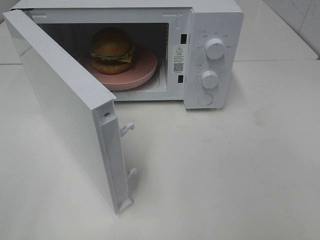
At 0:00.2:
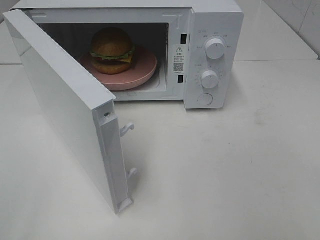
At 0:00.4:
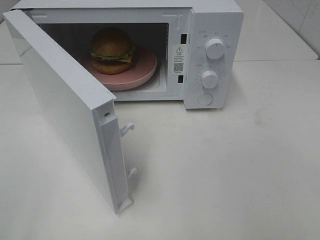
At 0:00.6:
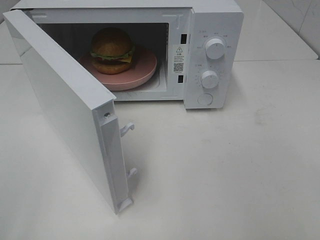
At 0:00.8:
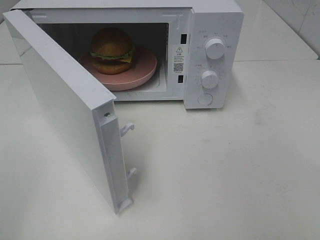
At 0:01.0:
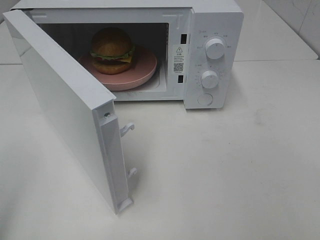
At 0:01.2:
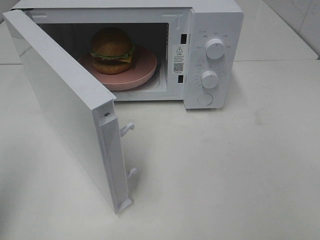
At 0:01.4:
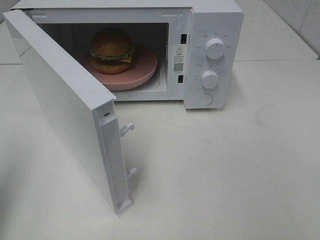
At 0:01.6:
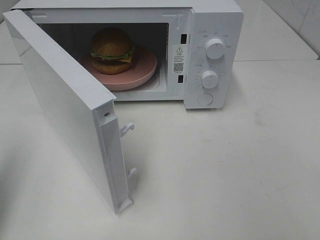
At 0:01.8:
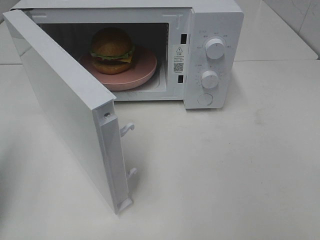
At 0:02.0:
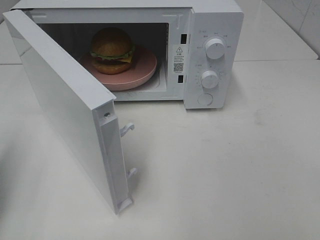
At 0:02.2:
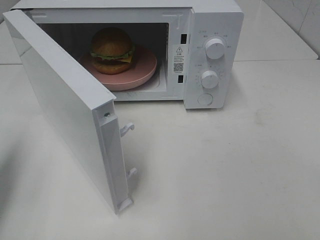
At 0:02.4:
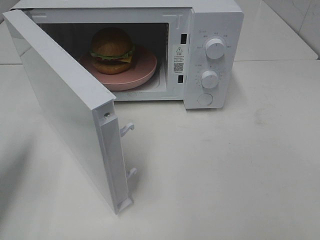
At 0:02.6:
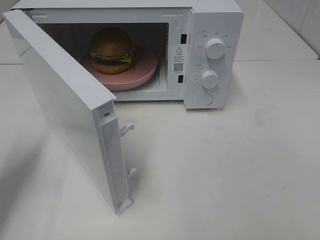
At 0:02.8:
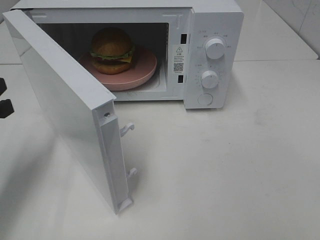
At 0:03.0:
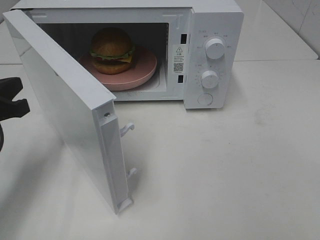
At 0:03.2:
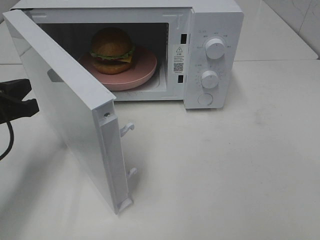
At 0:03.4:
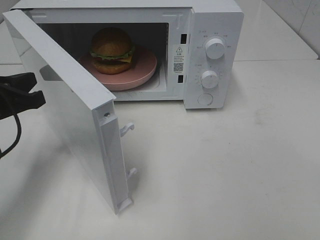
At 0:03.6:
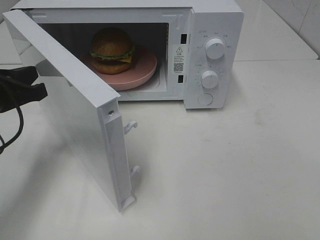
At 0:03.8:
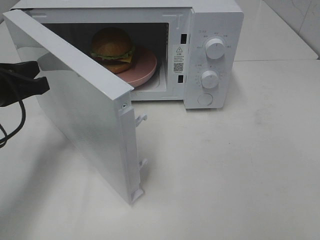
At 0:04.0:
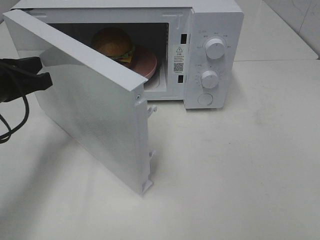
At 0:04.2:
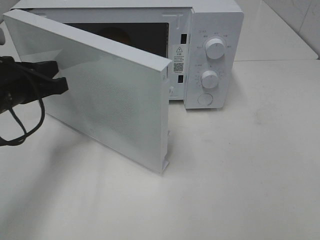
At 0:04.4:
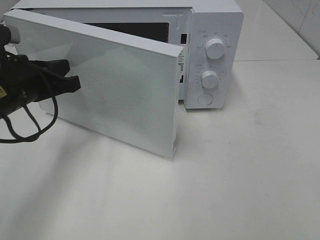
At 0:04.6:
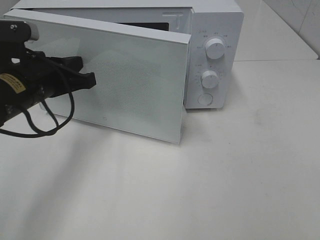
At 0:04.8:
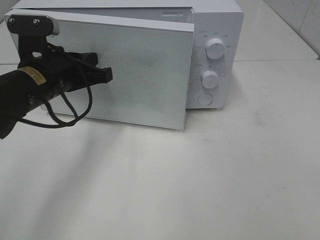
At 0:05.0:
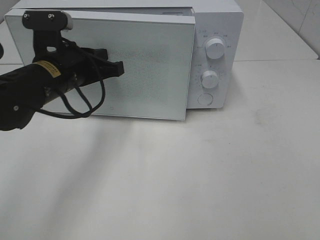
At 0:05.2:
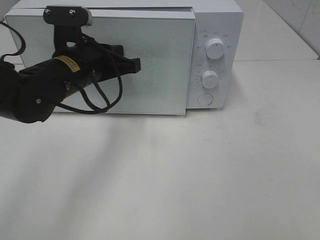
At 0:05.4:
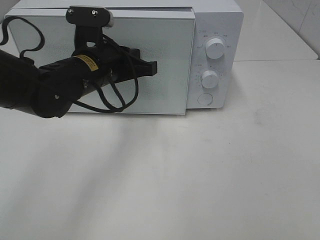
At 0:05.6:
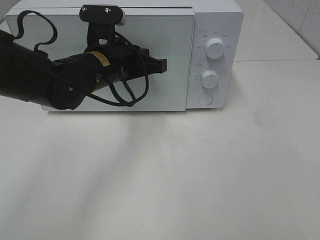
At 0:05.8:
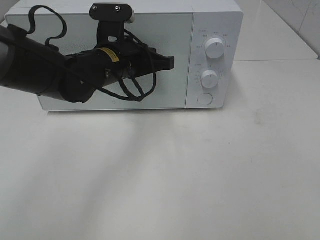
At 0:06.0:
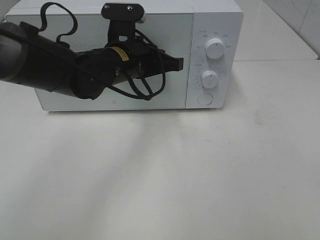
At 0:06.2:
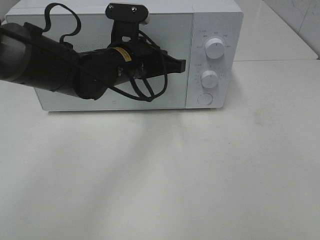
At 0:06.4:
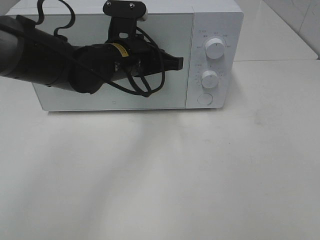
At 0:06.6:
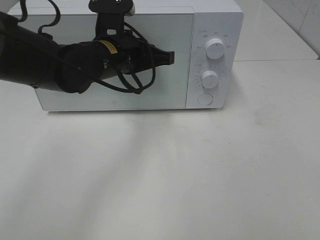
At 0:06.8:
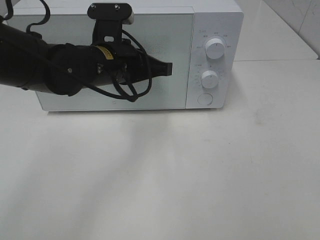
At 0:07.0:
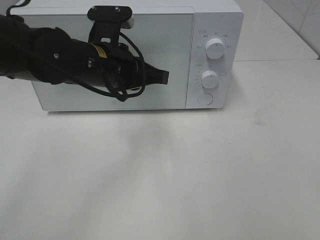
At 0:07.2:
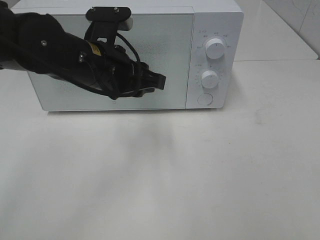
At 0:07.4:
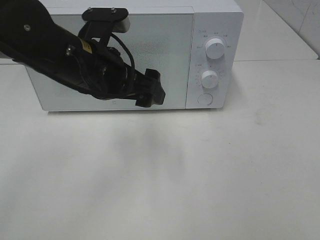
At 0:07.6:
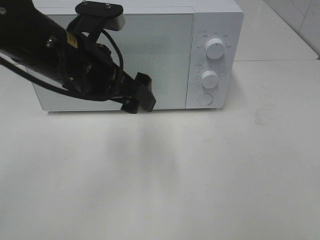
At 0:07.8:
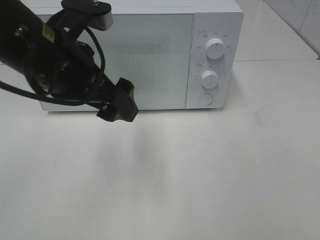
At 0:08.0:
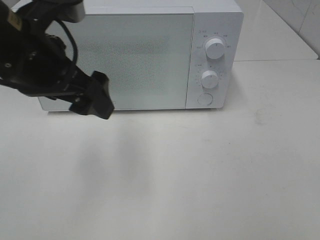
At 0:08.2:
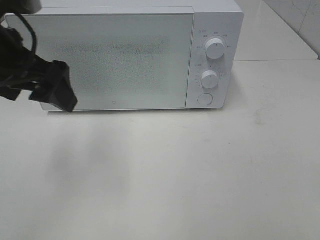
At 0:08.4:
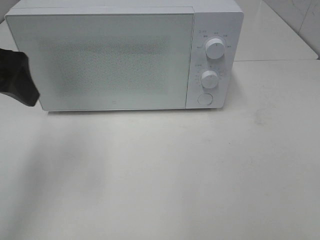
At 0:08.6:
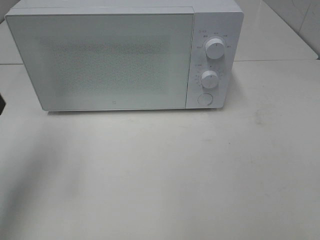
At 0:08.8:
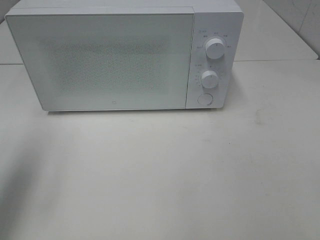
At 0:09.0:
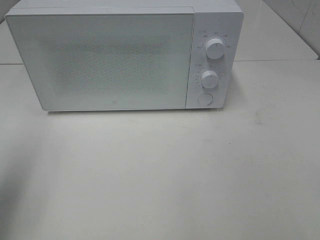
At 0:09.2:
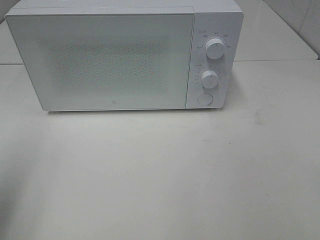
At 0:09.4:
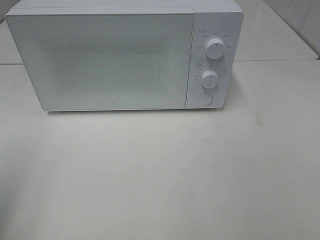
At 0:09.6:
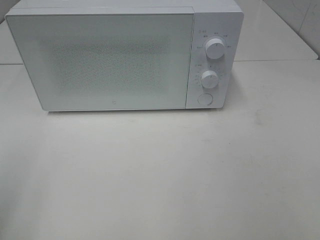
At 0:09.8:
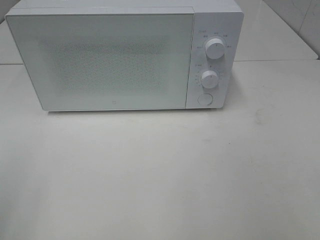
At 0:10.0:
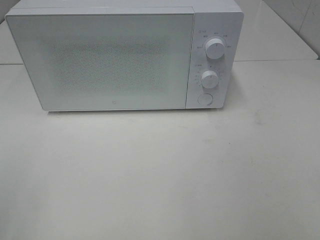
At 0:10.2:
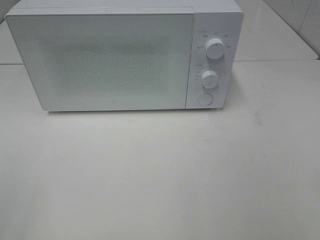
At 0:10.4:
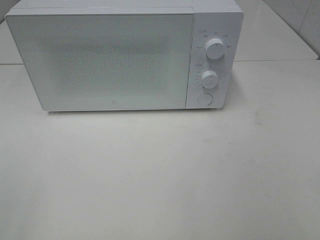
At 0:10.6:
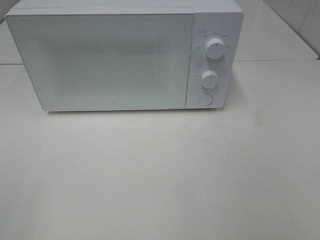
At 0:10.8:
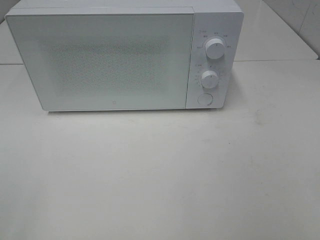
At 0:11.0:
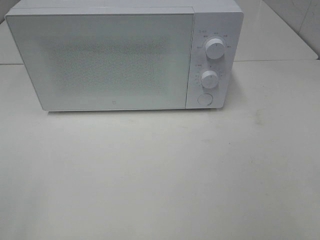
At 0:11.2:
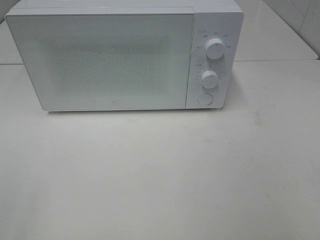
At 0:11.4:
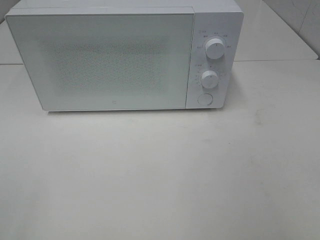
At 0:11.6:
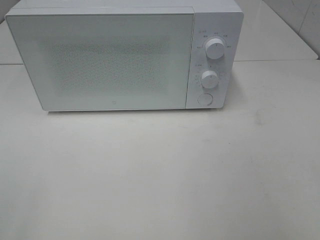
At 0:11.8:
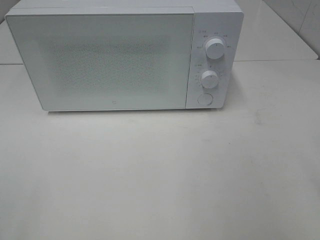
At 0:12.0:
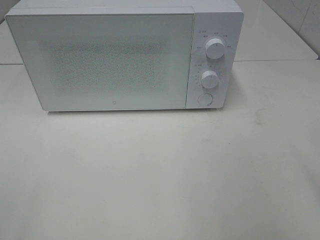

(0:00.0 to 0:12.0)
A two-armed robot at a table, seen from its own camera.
Task of the whole recording: Heat the burger.
Step, 0:00.0 - 0:06.8: Left hand: close the microwave door.
0:00.0 - 0:01.6: The left gripper shifts some 15 cm forward, and closes up.
0:01.6 - 0:03.0: The left gripper travels downward, forward and to the right by approximately 15 cm.
0:03.0 - 0:04.4: The left gripper goes about 5 cm to the right.
0:04.4 - 0:06.0: The left gripper travels to the right and forward by some 15 cm.
0:06.0 - 0:07.6: The left gripper shifts some 10 cm backward and upward, and opens.
0:07.6 - 0:09.0: The left gripper goes about 25 cm to the left and backward.
0:09.0 - 0:10.4: The left gripper shifts roughly 15 cm backward.

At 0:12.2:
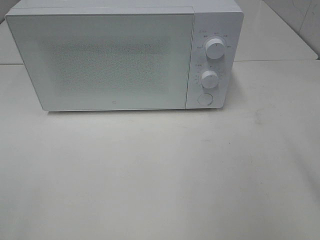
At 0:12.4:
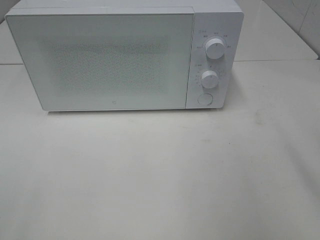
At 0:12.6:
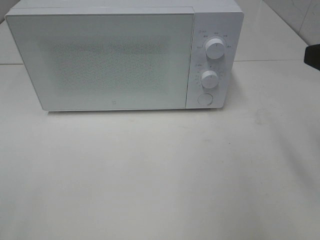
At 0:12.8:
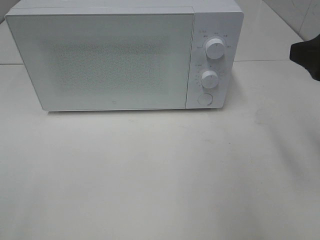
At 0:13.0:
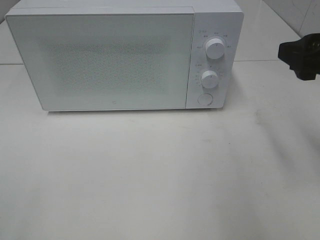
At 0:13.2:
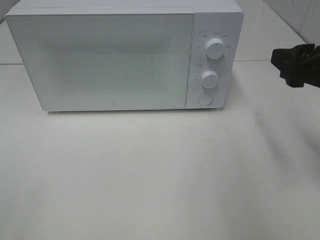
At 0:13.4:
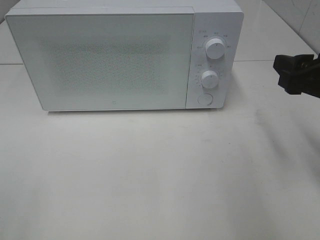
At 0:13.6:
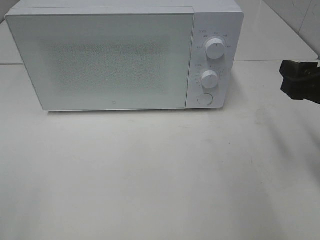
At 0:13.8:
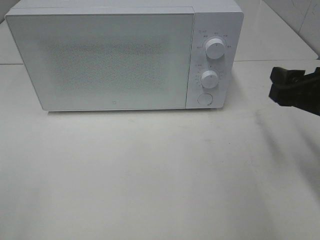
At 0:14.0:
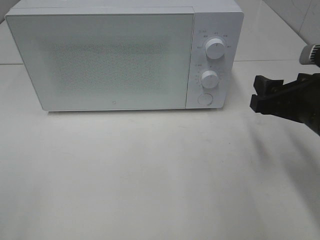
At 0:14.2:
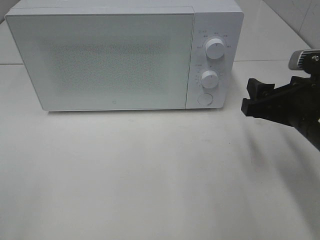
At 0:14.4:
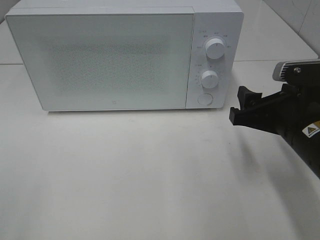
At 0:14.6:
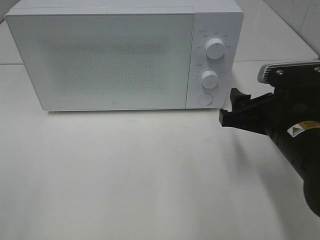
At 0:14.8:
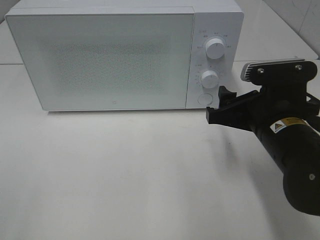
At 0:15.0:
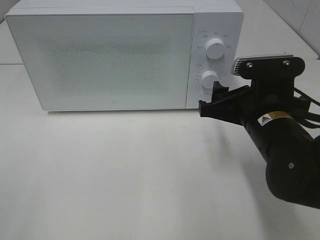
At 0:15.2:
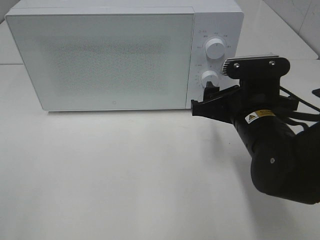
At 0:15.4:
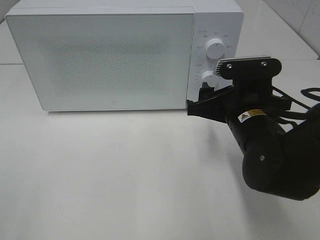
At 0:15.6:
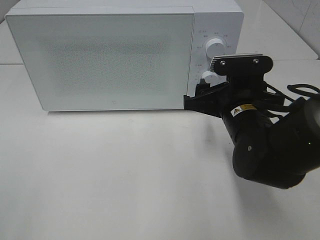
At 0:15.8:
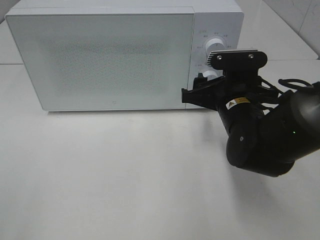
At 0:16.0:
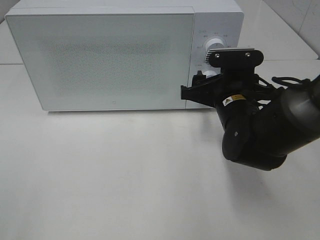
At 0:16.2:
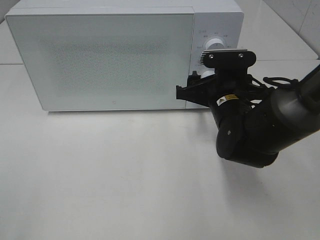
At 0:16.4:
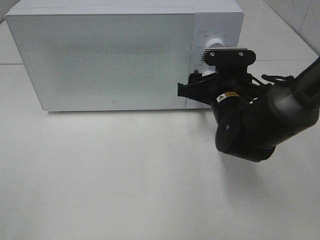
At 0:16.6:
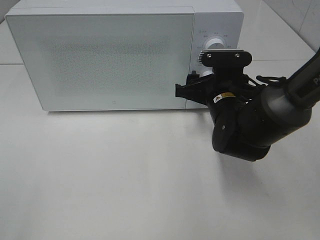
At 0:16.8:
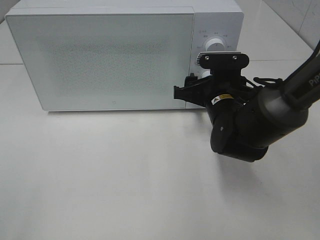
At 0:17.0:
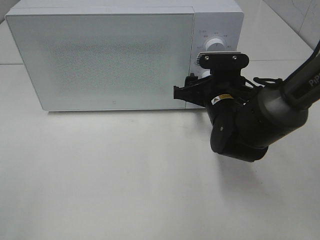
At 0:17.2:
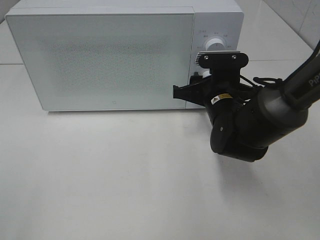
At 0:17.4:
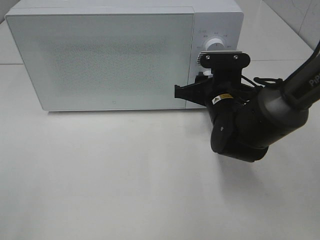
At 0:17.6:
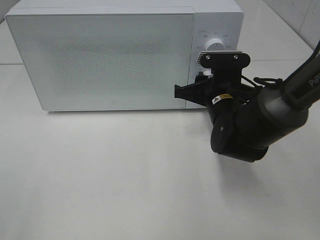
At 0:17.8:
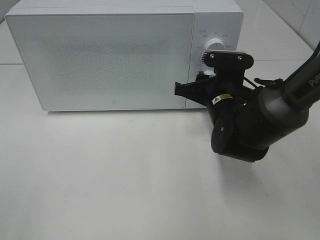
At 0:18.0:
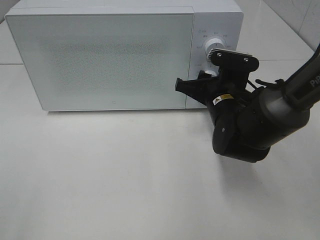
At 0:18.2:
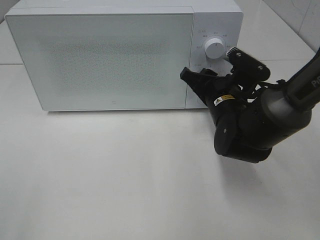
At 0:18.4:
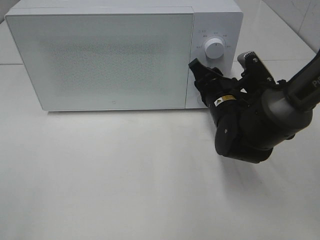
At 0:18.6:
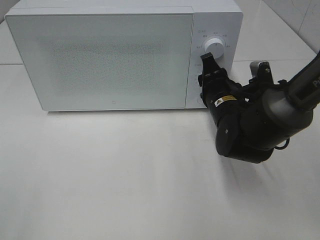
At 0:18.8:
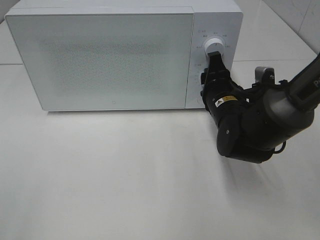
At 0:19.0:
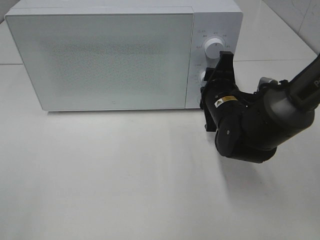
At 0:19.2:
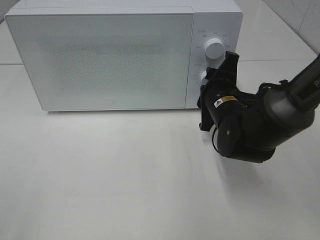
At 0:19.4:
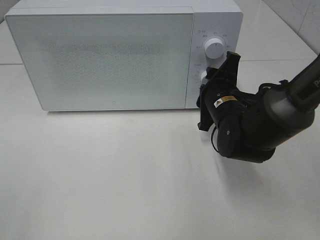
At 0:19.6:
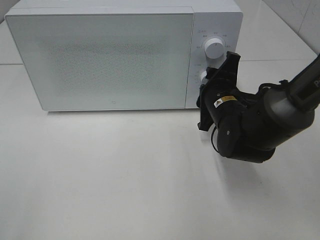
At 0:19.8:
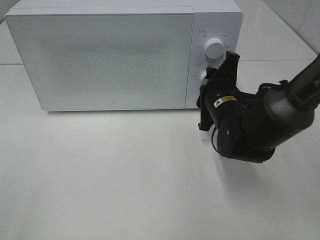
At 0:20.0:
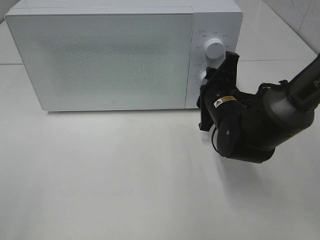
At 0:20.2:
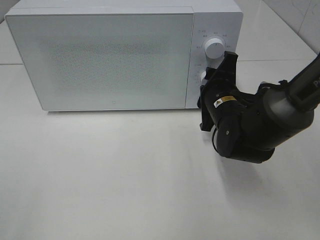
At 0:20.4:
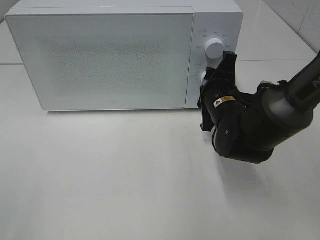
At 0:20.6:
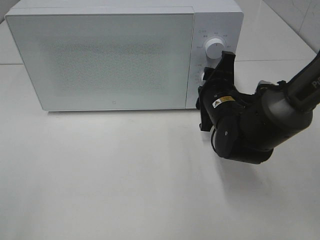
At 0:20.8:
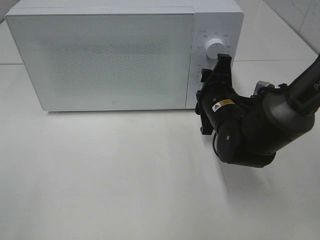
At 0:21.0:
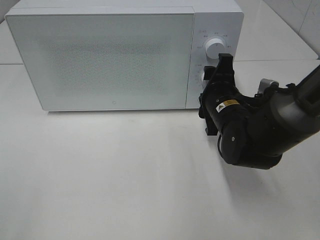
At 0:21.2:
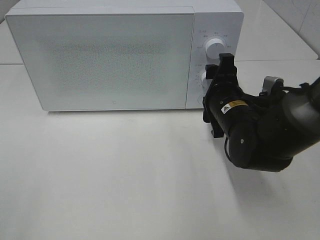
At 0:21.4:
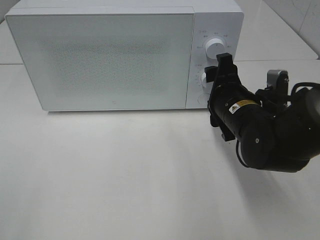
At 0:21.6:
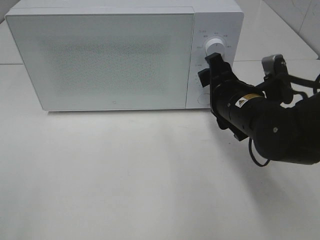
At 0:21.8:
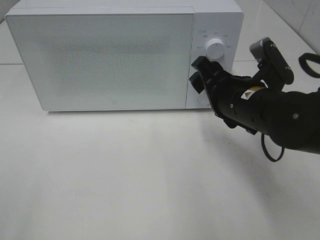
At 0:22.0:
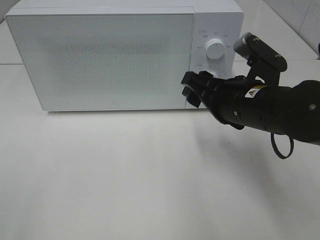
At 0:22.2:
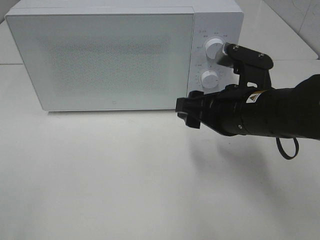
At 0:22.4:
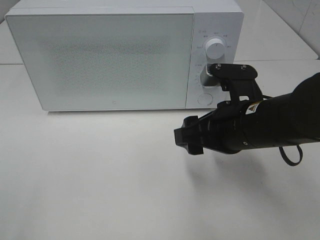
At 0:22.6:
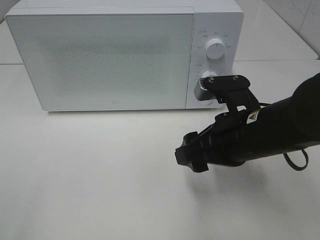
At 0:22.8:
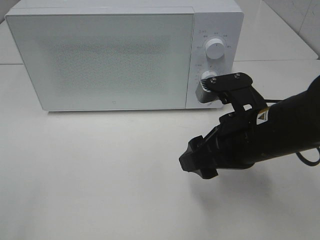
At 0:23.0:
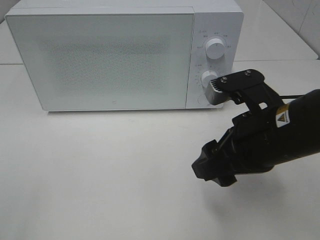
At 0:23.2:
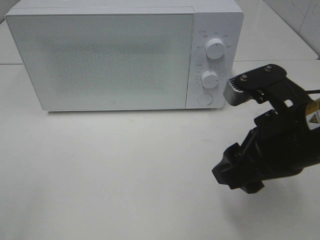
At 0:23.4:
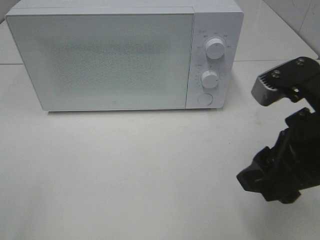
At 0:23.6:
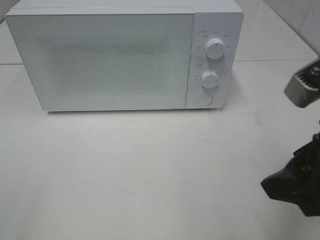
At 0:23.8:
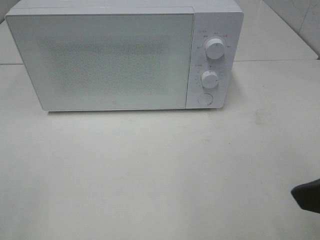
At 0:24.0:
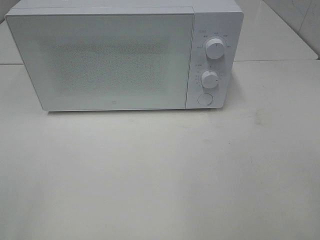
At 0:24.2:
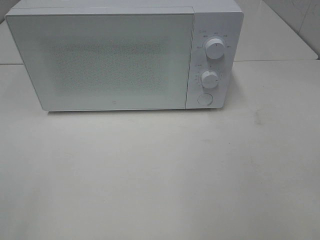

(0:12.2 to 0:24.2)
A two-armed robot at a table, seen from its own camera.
Task of the whole recording: Heat the burger.
Step, 0:12.2 - 0:20.8: Right hand: twist timer button.
0:12.2 - 0:13.8: The right gripper heads downward and forward, covering about 15 cm.
0:13.8 - 0:15.2: The right gripper moves to the left, some 10 cm.
0:15.2 - 0:16.6: The right gripper heads forward, covering some 10 cm.
0:16.6 - 0:18.2: The right gripper closes up.
0:19.8 - 0:21.2: There are only small adjustments of the grippers.
0:21.2 - 0:22.6: The right gripper goes approximately 10 cm backward.
0:22.6 - 0:24.2: The right gripper heads backward, to the right and upward, covering some 25 cm.
